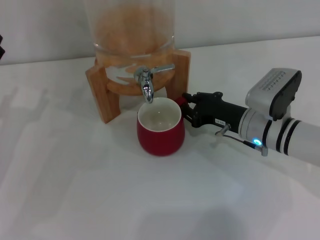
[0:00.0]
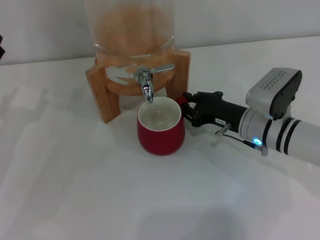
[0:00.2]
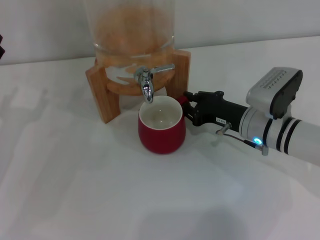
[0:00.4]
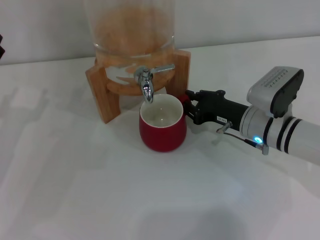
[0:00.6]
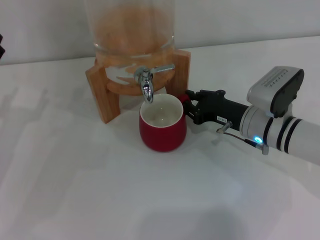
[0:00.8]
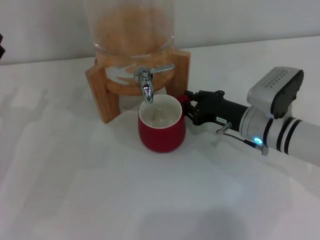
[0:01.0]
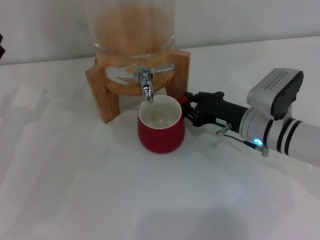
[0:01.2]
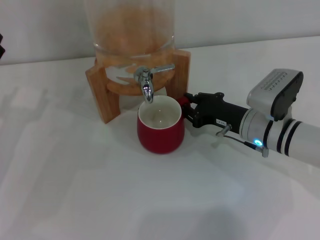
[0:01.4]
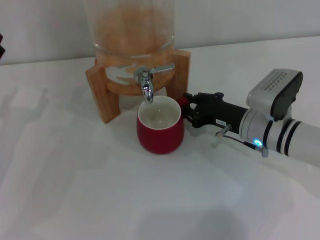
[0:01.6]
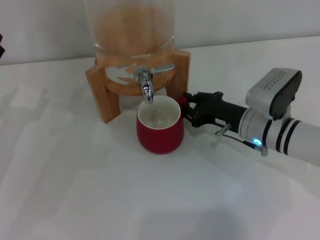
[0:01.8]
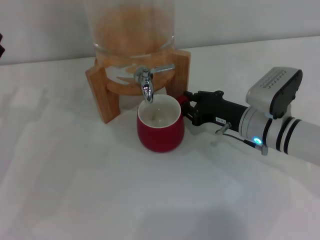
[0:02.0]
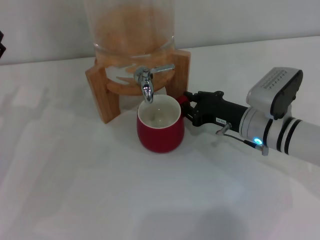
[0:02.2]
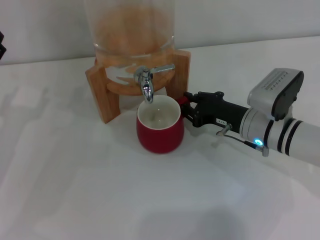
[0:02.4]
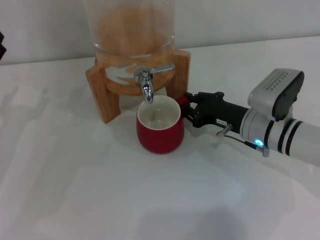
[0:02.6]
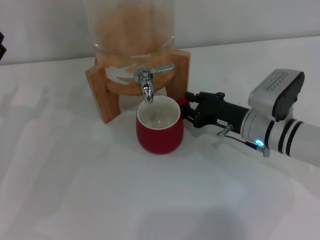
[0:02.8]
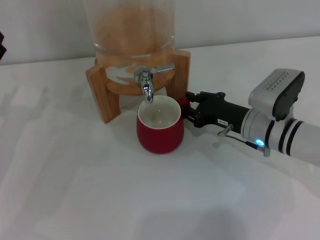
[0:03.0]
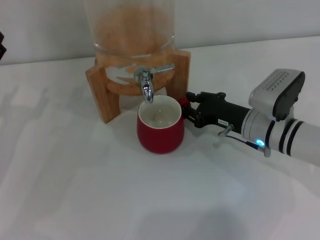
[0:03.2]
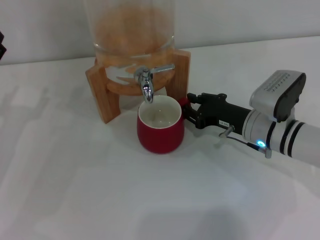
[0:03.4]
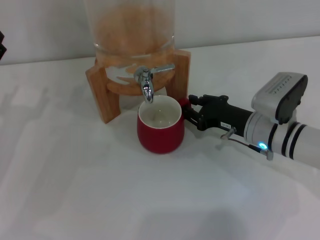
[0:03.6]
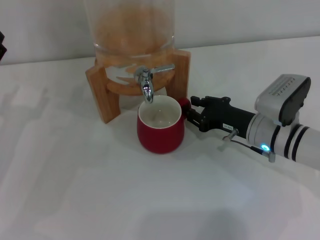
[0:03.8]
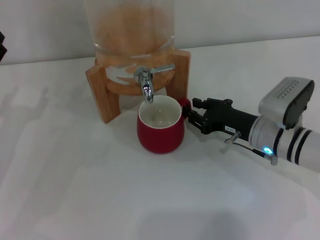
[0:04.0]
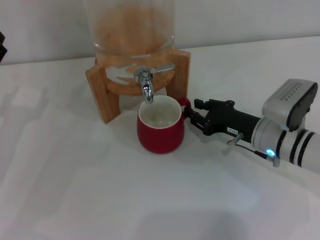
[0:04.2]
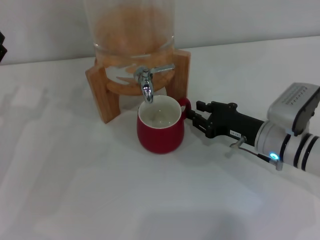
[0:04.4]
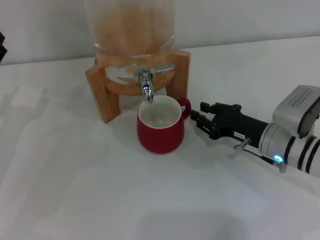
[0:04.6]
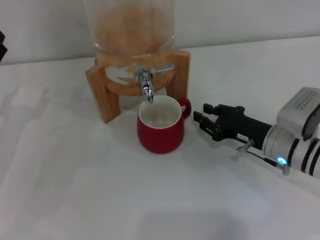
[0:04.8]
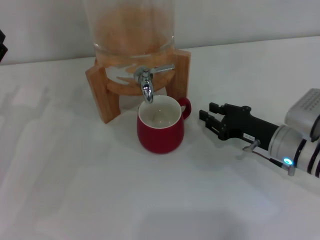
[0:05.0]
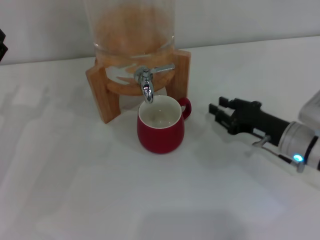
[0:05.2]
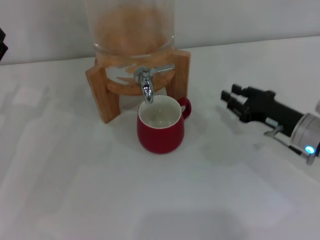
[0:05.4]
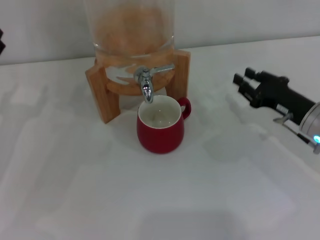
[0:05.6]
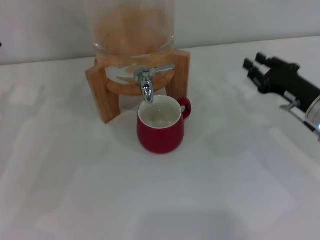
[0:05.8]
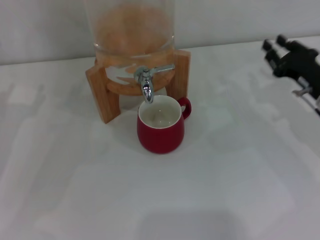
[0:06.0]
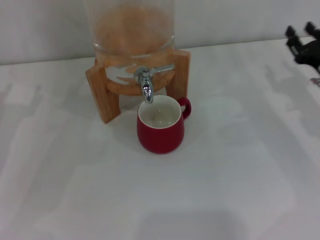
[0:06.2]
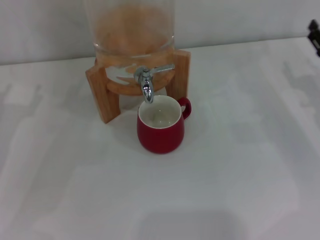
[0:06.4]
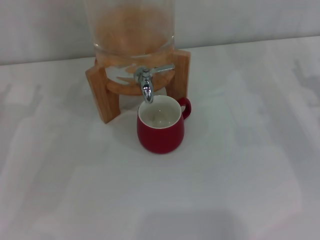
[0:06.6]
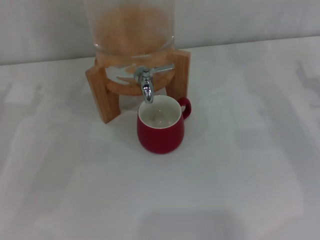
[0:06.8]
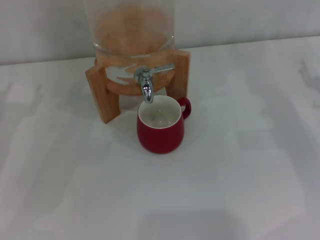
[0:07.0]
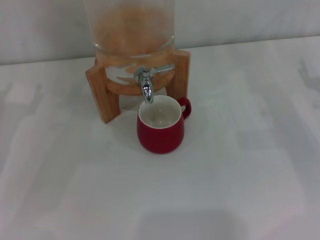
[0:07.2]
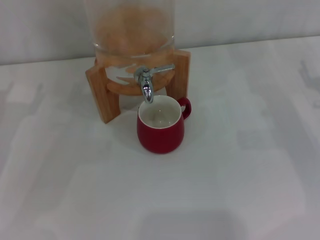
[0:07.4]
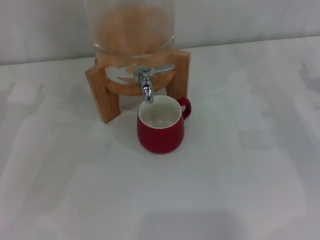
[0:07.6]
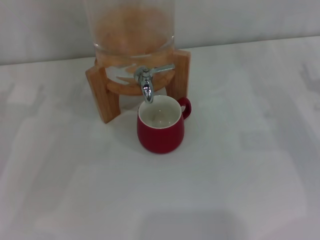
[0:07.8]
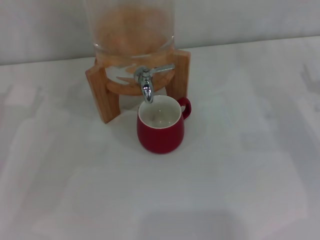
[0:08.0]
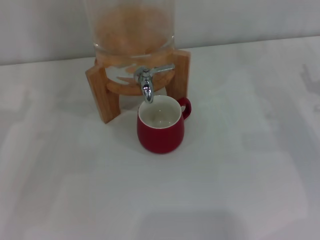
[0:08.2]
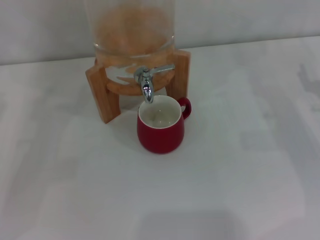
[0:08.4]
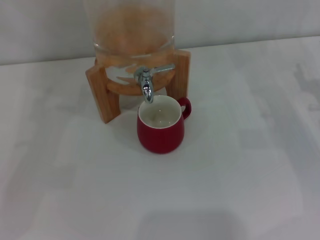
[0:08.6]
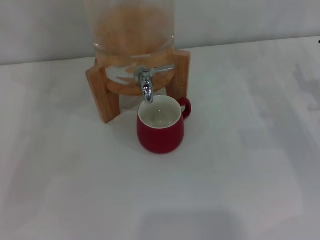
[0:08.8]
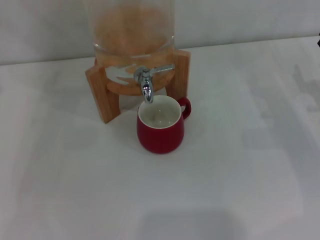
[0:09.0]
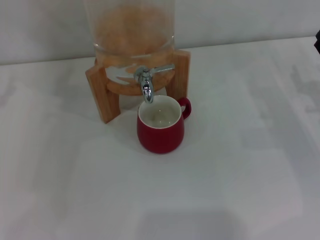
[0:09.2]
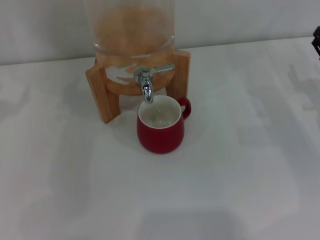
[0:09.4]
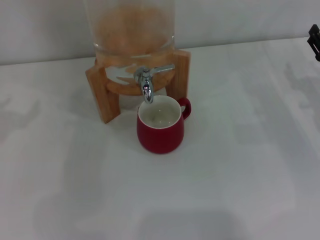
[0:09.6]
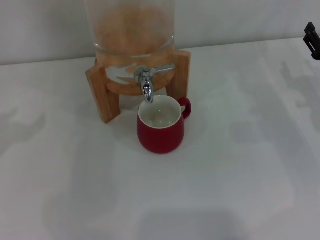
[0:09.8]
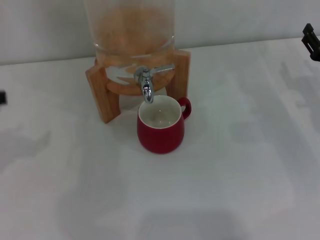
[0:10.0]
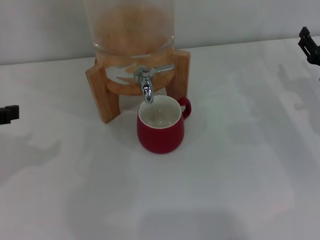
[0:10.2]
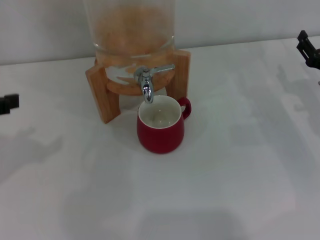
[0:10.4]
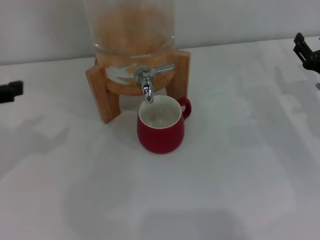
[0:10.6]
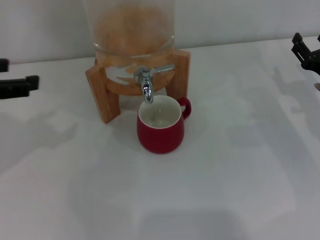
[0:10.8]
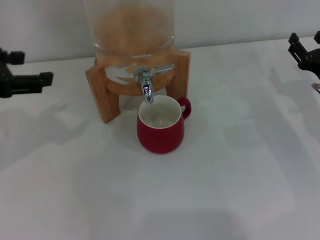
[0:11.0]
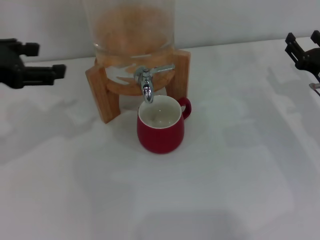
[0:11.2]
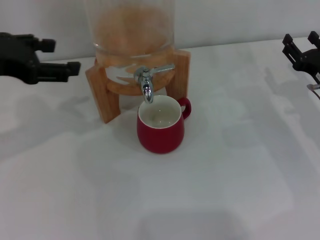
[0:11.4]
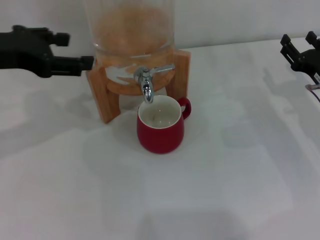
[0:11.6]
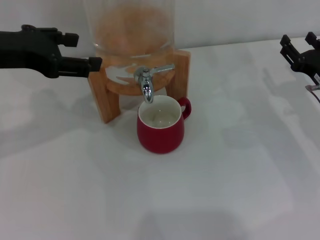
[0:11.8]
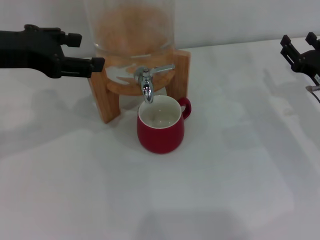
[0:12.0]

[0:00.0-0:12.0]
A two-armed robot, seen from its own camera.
Task of the whole recording: the right gripper pick up the red cup and place it horizontally under the faucet, the left gripper turn on the faucet to fill the cup, and then turn off the faucet.
Step, 0:00.0 to 0:04.4: Move the cup beneath the water dispenser nozzle with the right gripper.
0:00.0 to 0:03.0: Neither gripper changes place.
0:03.0 to 0:04.4: The grippers stay close to where they were, moving slightly.
0:04.4 to 0:06.0: The right gripper heads to the right, covering approximately 10 cm.
0:06.0 to 0:07.6: The right gripper is displaced to the right by roughly 5 cm, and opens up.
0:10.4 to 0:12.0: The left gripper travels forward and to the right by some 10 cm.

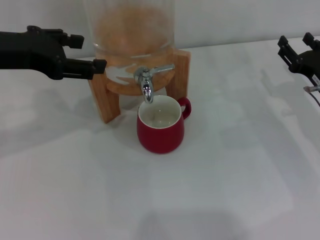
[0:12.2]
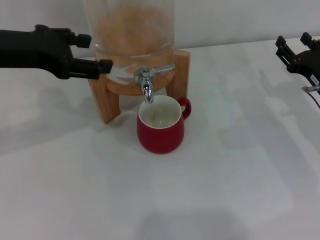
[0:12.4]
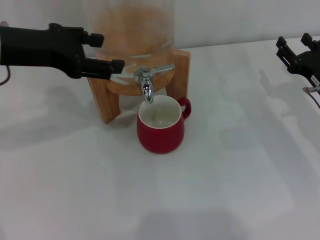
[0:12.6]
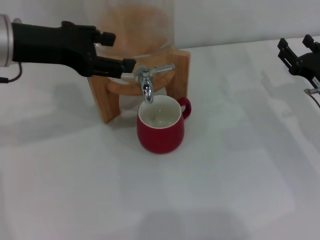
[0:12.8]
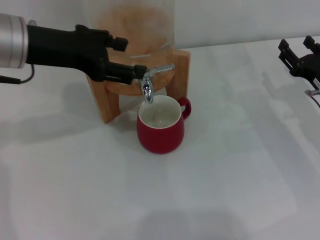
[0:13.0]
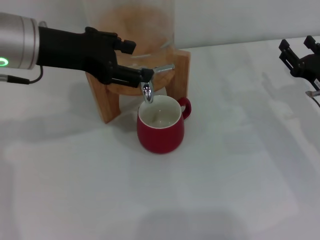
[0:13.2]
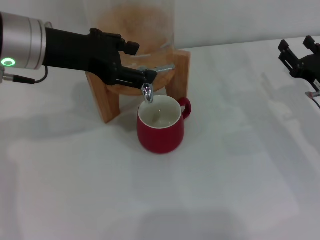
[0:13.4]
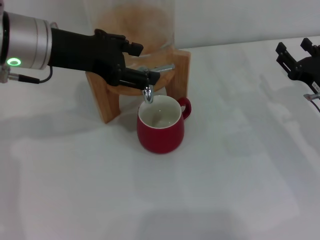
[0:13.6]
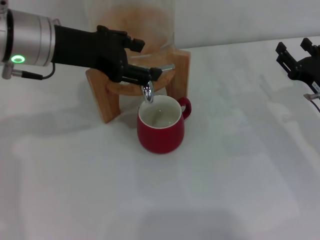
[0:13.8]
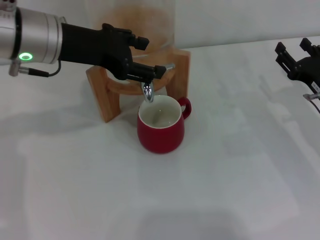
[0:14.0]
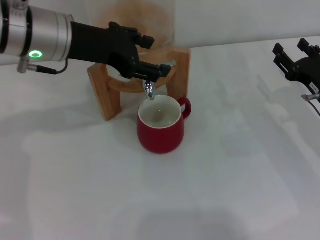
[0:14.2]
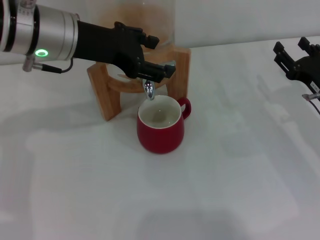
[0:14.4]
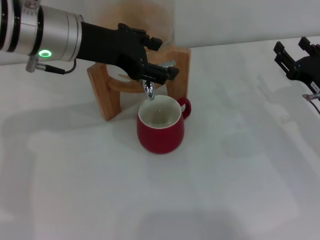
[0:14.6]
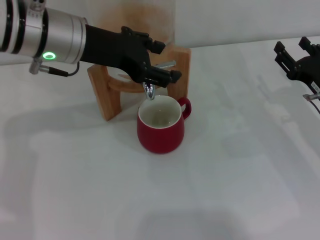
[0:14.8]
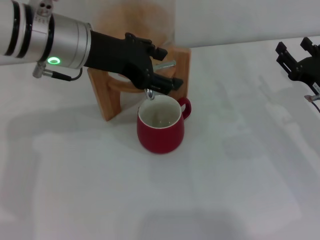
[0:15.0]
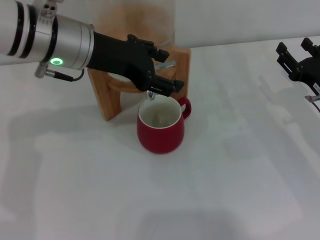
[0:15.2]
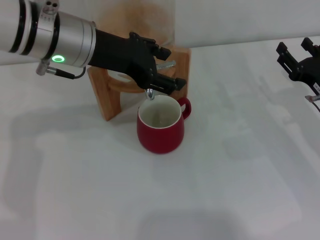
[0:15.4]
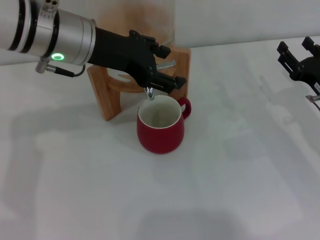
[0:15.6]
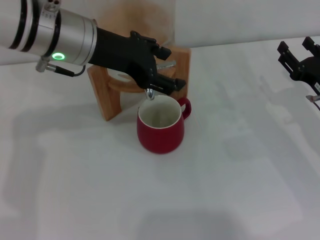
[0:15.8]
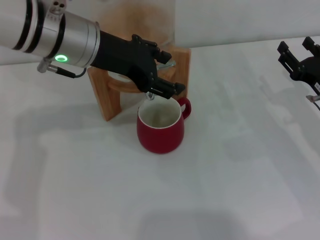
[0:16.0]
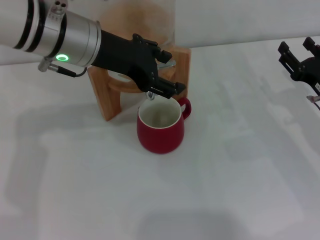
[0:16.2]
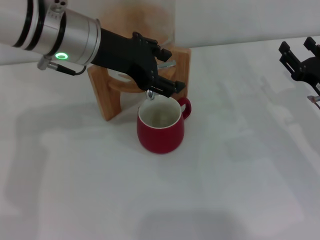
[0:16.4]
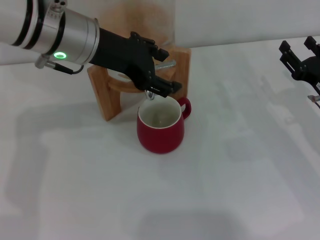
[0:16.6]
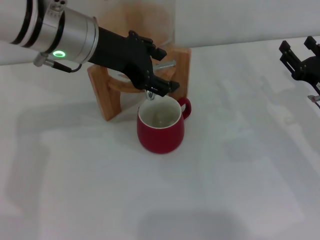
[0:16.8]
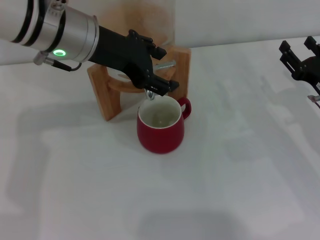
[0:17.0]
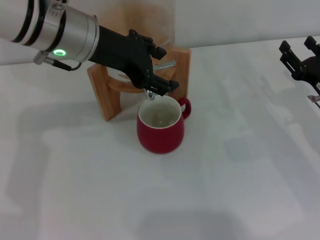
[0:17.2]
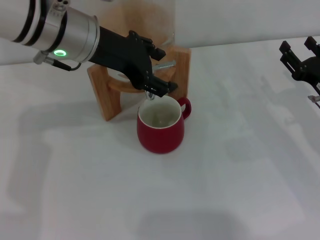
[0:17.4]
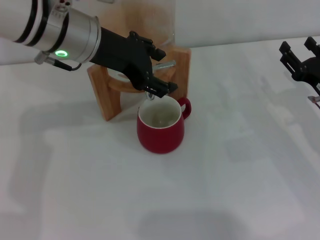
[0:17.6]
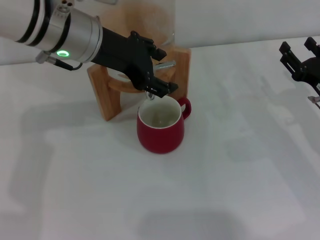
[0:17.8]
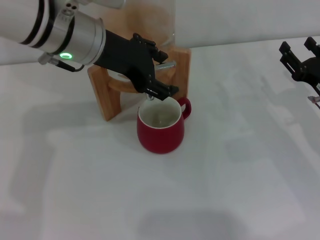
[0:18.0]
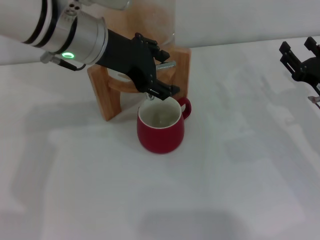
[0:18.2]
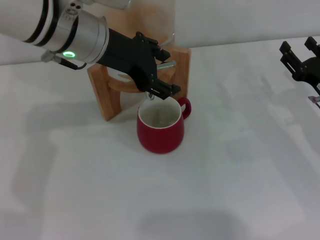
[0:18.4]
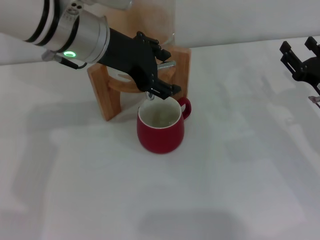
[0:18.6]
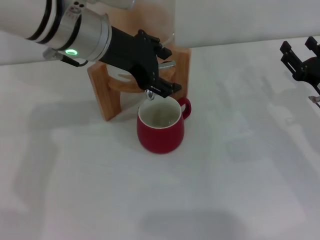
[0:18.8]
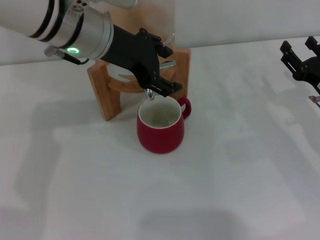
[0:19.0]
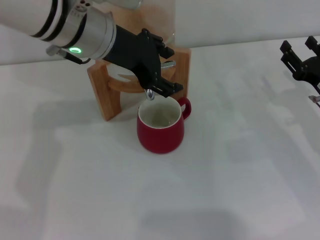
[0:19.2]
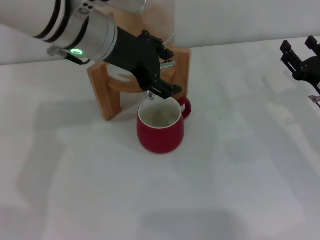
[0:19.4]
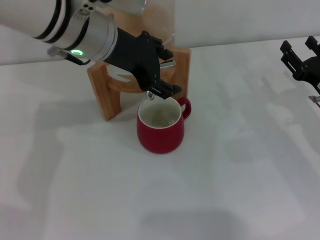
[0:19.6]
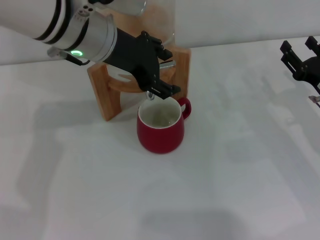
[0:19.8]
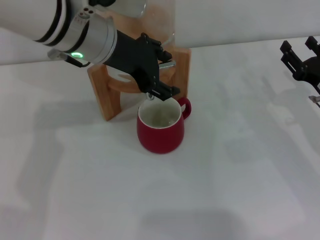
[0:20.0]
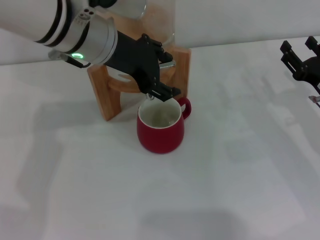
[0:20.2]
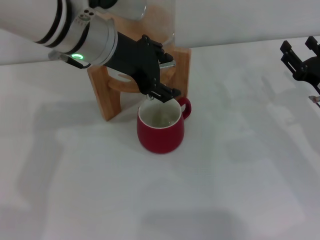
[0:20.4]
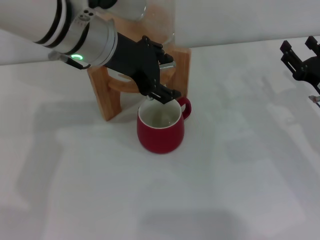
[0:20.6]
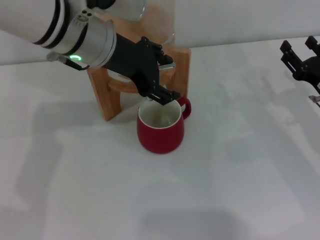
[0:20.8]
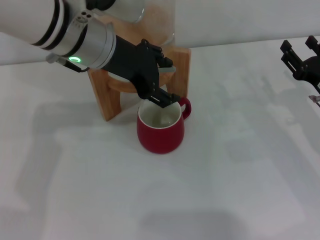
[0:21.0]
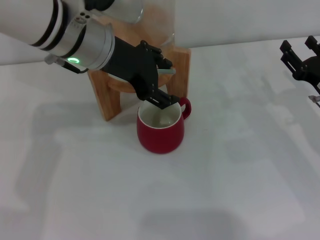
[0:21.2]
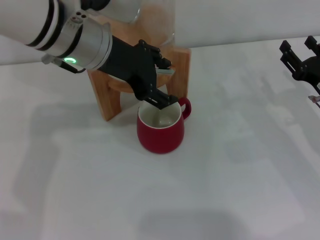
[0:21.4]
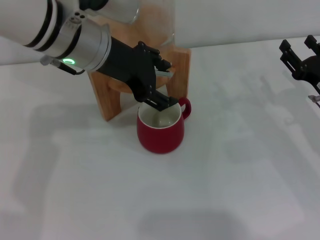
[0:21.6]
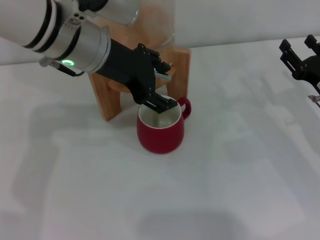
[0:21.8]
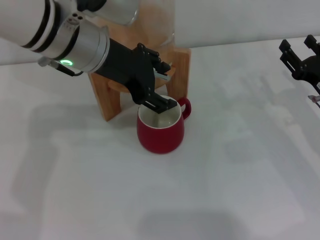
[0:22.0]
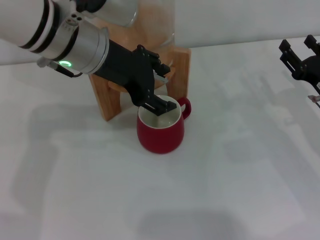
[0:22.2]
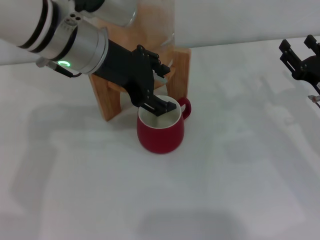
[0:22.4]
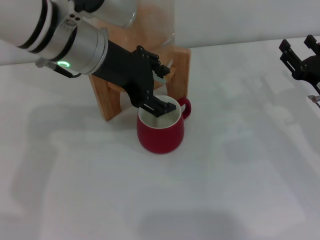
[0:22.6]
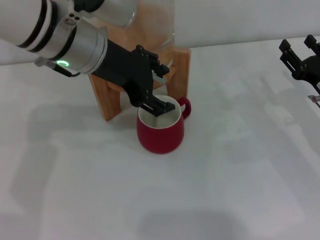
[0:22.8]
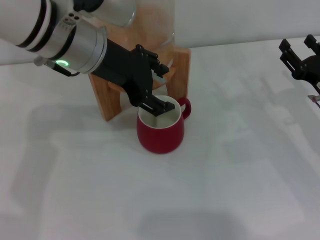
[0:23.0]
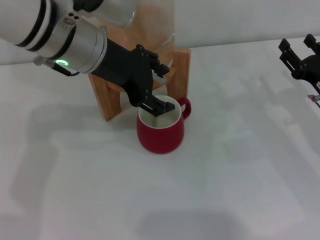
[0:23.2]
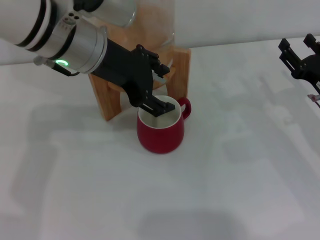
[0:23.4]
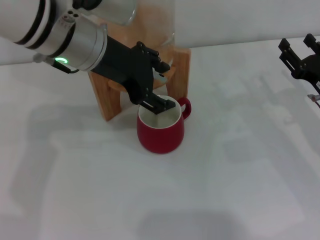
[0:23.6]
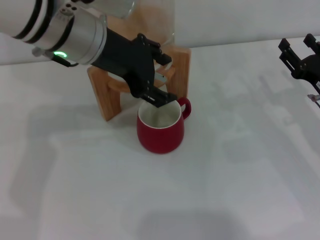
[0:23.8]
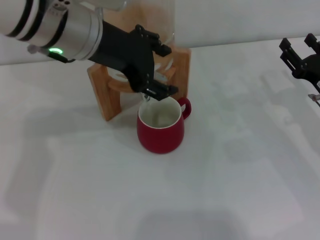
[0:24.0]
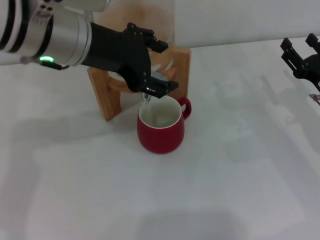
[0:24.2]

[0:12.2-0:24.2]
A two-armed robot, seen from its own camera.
Task of the whole recording: the right gripper pick up the red cup and place it horizontally under the faucet, the left gripper turn on the faucet to fill the cup, and then turn off the faucet.
Step, 0:12.2 to 0:23.6: Open the dispenser valve and fill the cup with water with the left gripper.
0:12.2 to 0:13.8: The left gripper shifts about 5 cm to the right.
0:13.8 to 0:18.2: There are only small adjustments of the grippers.
0:18.2 to 0:19.8: There are only small adjustments of the grippers.
0:19.8 to 0:21.2: Both grippers stay put.
0:21.2 to 0:24.2: The grippers move only a little.
